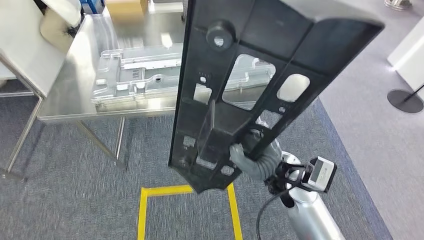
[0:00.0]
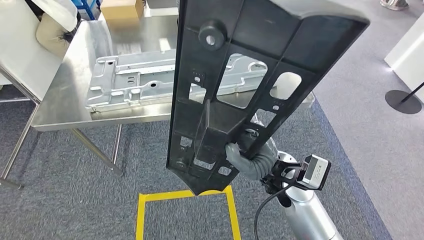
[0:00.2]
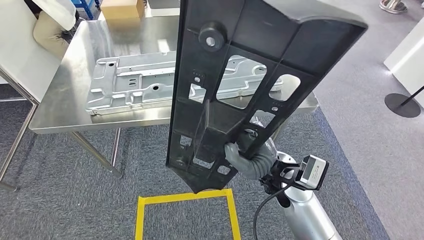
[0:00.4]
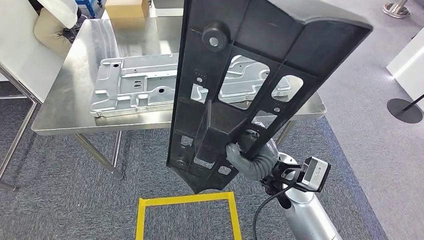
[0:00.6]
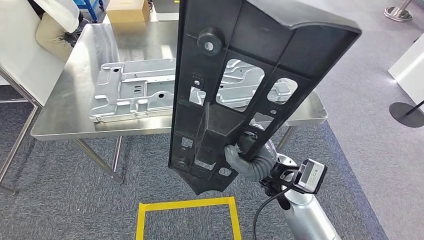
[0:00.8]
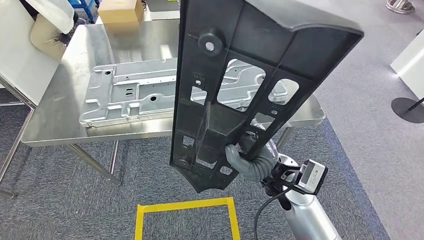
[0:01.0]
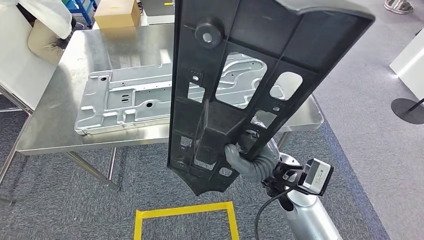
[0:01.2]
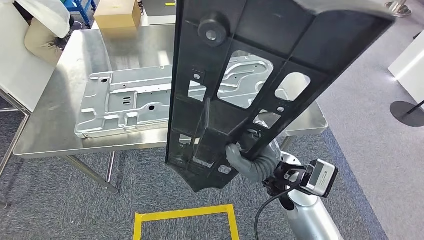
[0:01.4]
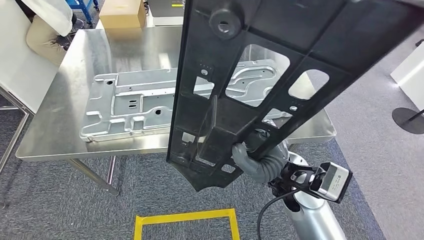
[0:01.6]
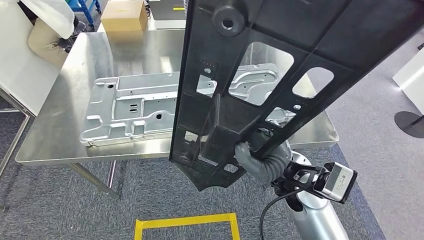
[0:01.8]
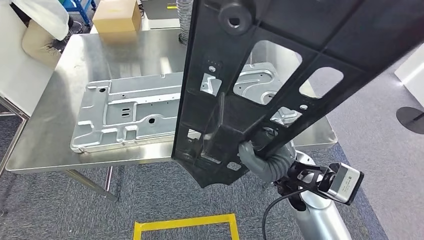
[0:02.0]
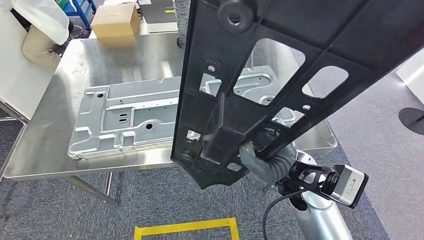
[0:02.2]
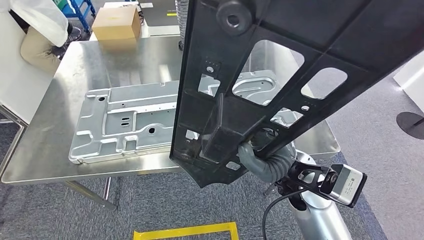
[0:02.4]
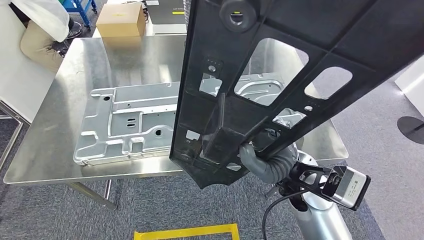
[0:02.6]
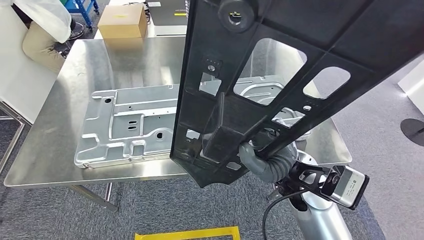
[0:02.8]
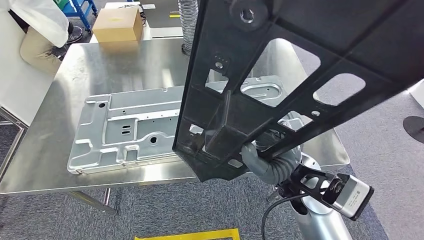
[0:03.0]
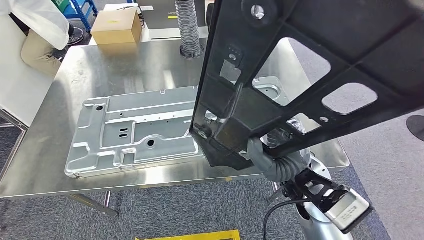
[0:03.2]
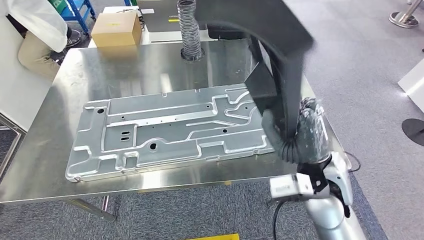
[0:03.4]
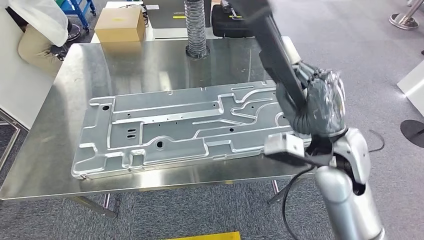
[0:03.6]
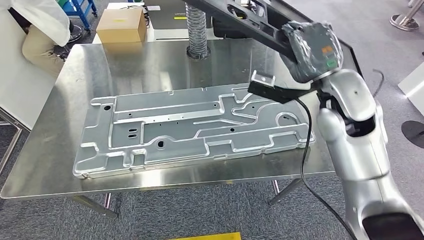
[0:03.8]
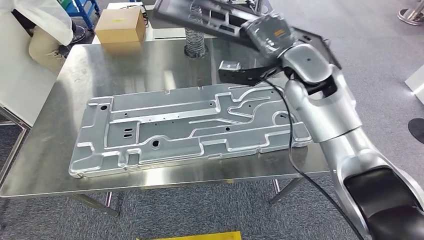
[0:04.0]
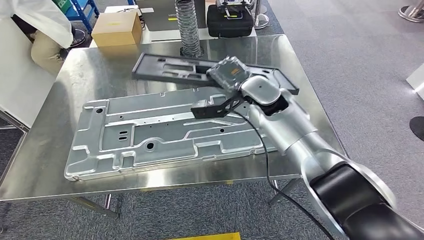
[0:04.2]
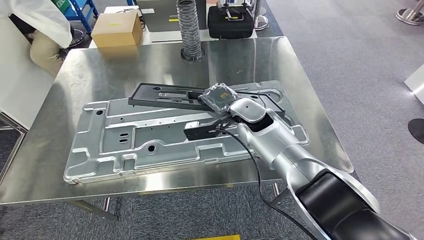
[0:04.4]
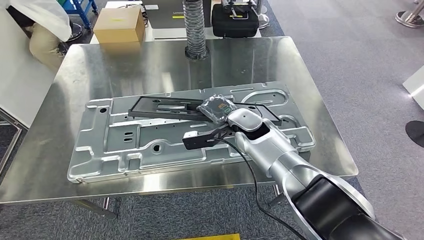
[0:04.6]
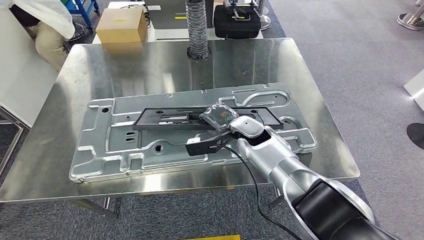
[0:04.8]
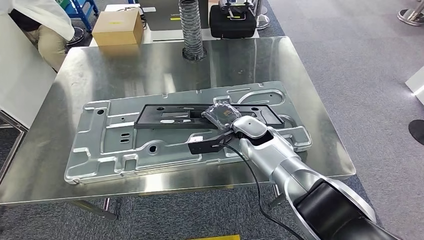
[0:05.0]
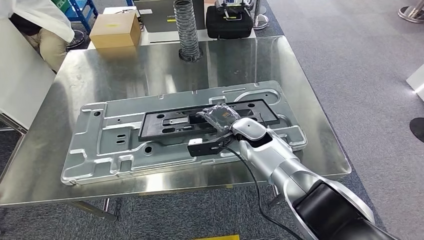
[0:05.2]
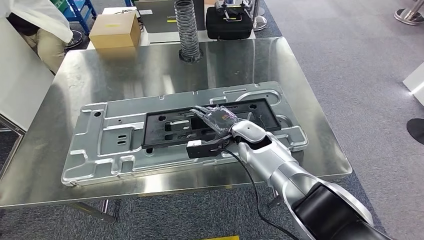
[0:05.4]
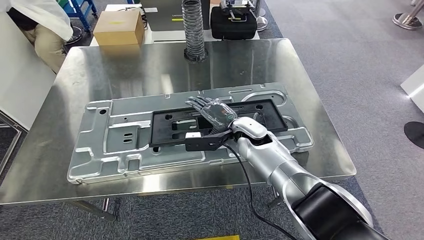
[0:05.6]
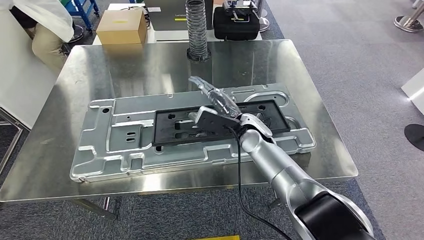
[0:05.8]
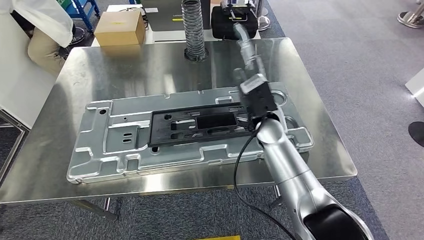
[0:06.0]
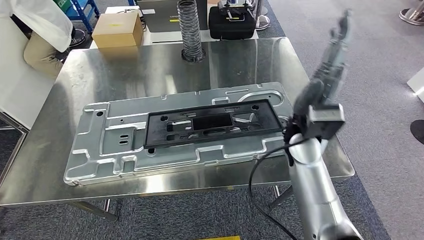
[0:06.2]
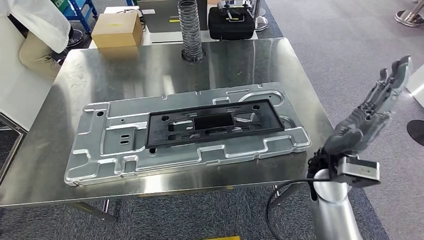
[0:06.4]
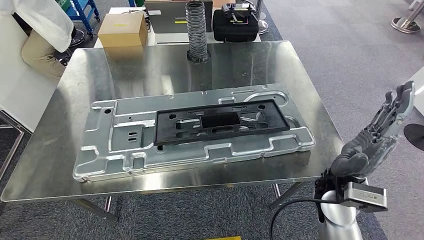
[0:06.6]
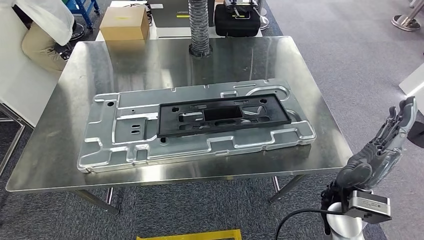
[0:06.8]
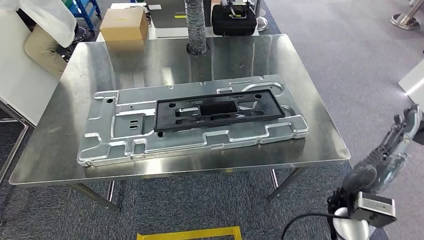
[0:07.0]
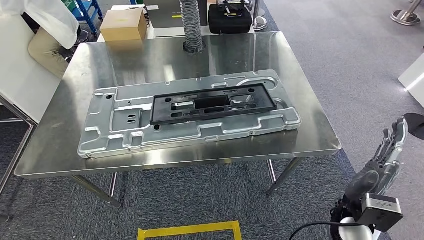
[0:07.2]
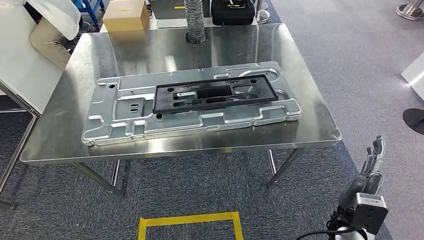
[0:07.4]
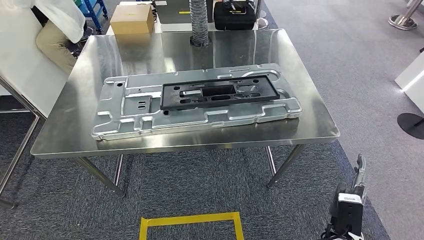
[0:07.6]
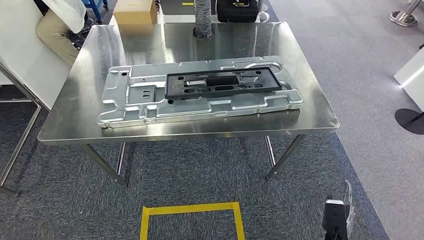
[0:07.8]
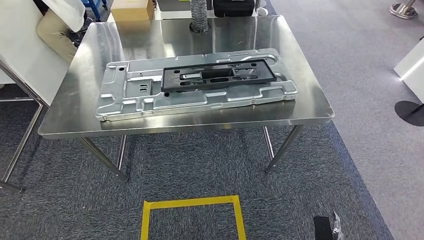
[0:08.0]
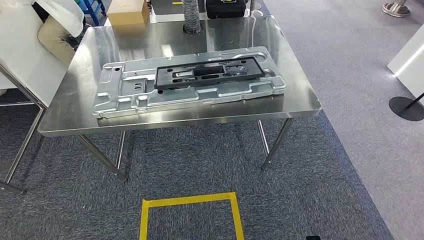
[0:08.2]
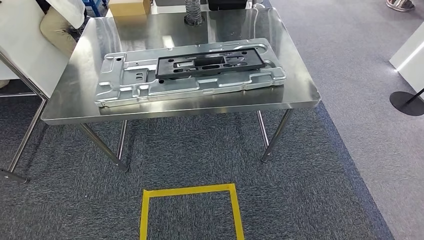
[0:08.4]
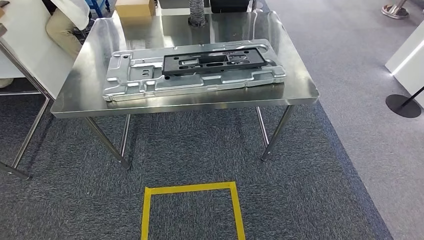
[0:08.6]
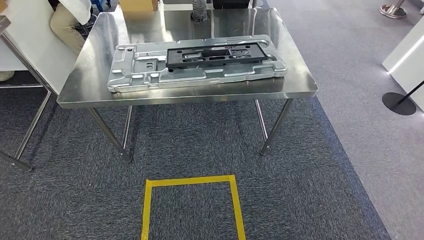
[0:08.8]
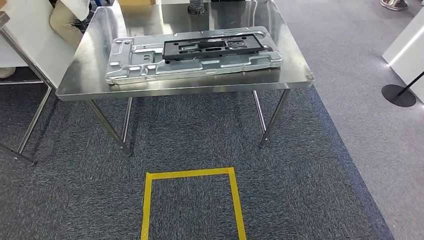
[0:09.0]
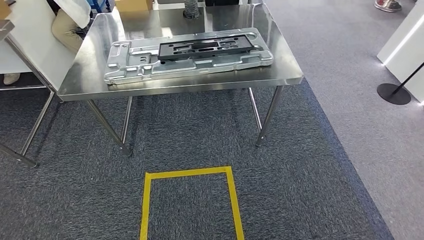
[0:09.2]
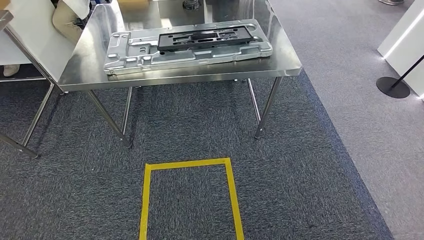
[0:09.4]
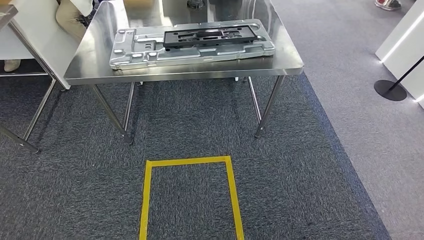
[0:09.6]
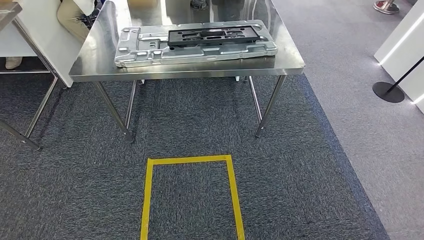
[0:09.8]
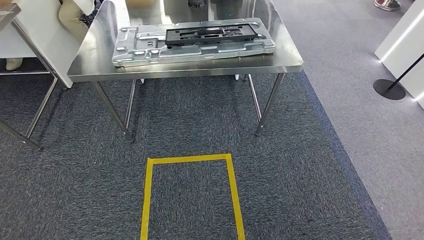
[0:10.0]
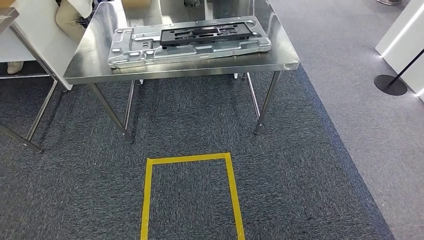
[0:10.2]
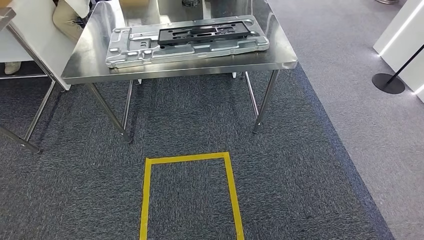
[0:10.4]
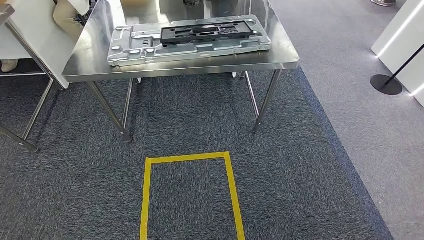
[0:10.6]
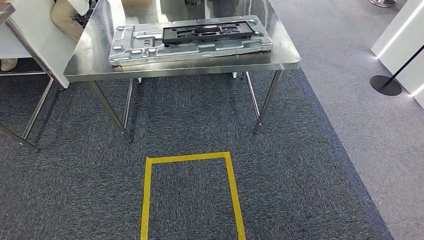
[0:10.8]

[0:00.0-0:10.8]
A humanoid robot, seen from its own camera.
Step, 0:00.0 to 0:07.8: Insert the small parts into the corresponding holes on the workbench.
Step, 0:08.2 to 0:10.8: Move to the initial position of the workbench.

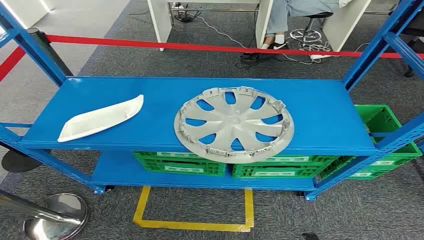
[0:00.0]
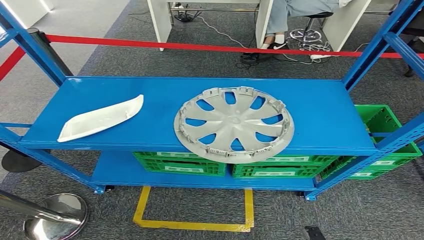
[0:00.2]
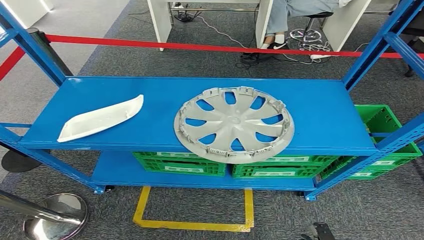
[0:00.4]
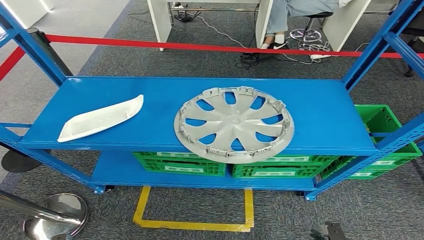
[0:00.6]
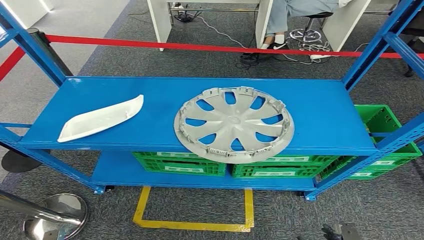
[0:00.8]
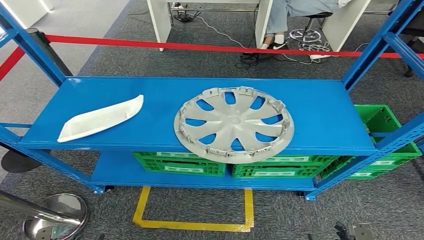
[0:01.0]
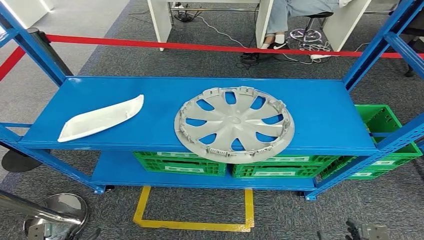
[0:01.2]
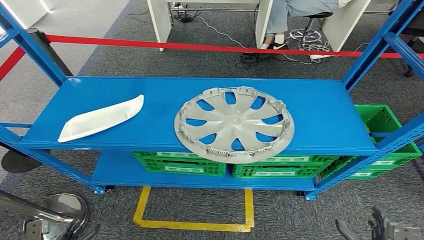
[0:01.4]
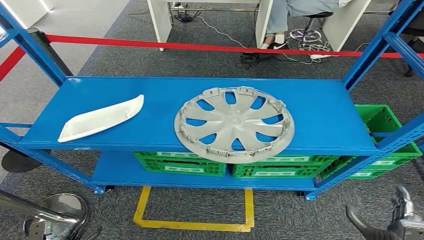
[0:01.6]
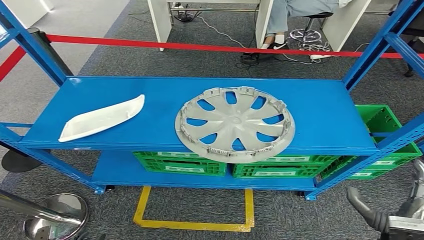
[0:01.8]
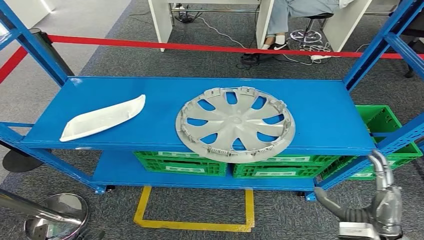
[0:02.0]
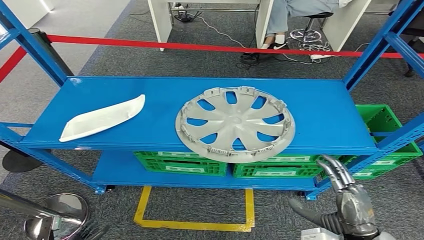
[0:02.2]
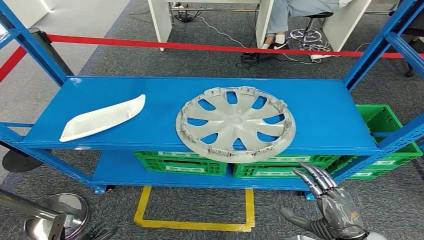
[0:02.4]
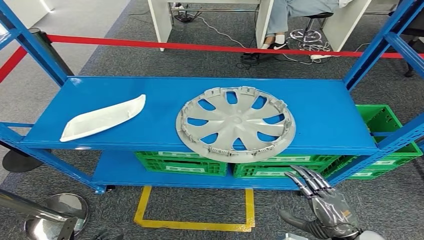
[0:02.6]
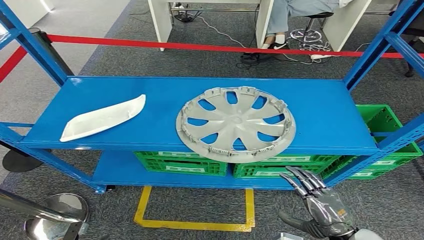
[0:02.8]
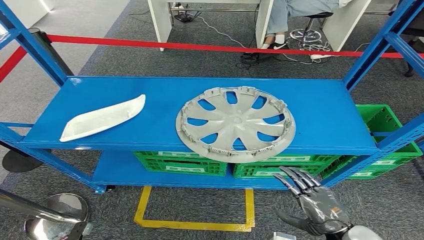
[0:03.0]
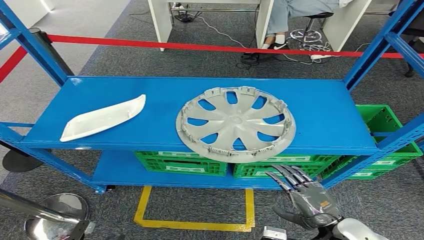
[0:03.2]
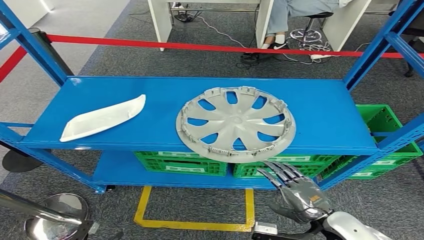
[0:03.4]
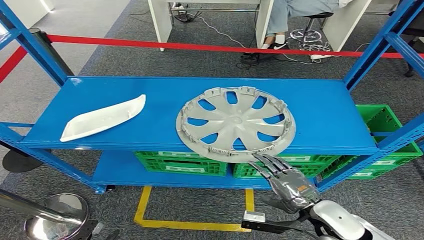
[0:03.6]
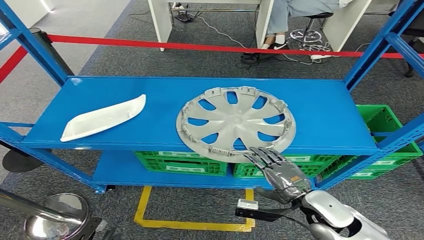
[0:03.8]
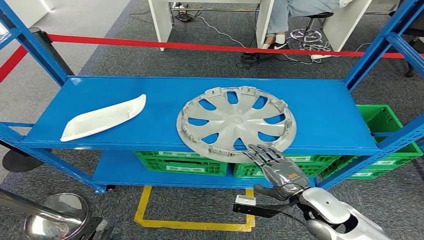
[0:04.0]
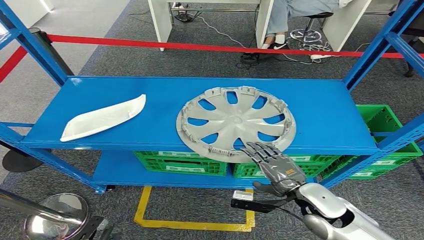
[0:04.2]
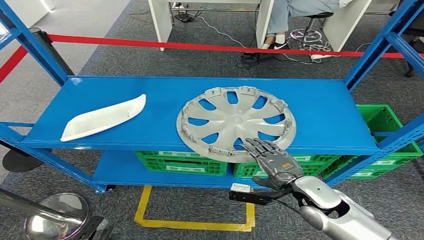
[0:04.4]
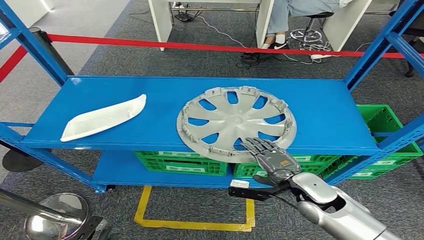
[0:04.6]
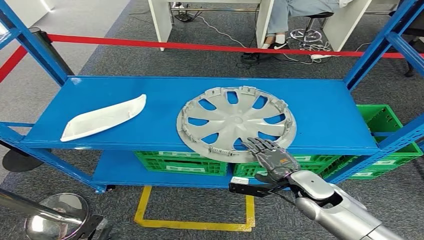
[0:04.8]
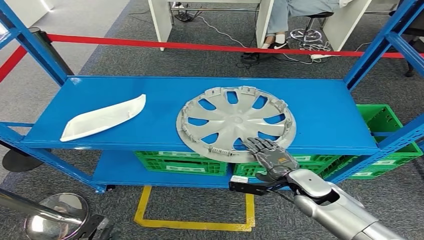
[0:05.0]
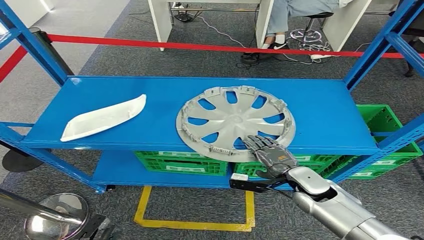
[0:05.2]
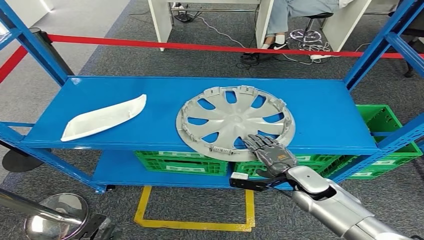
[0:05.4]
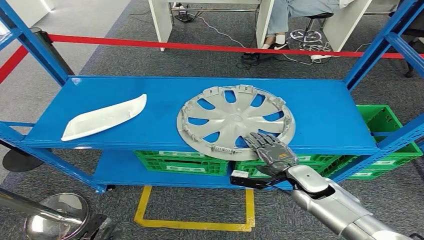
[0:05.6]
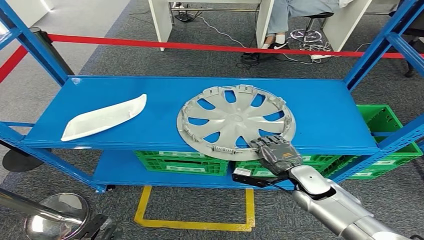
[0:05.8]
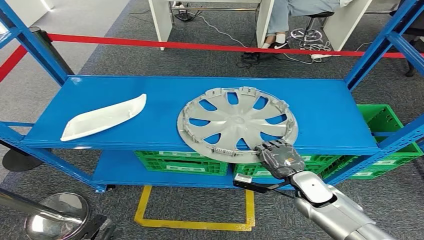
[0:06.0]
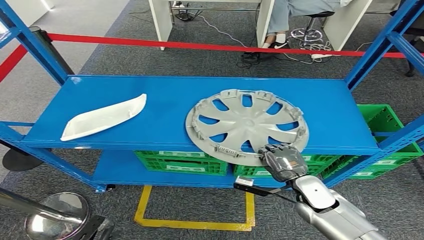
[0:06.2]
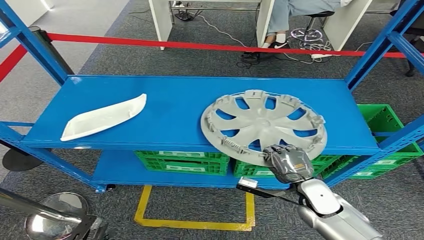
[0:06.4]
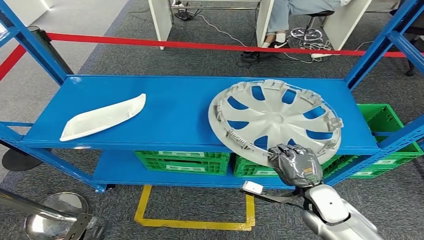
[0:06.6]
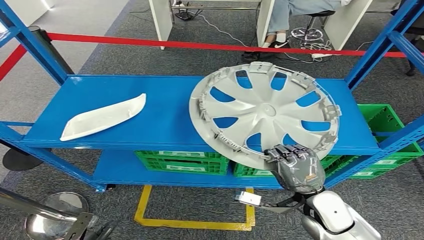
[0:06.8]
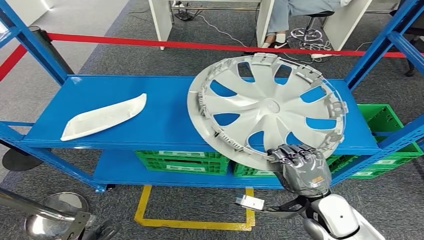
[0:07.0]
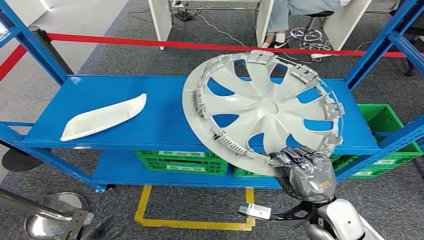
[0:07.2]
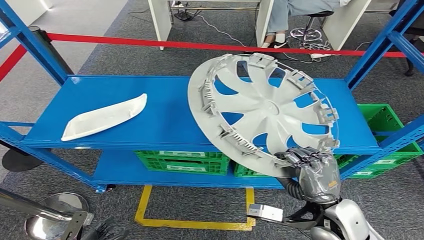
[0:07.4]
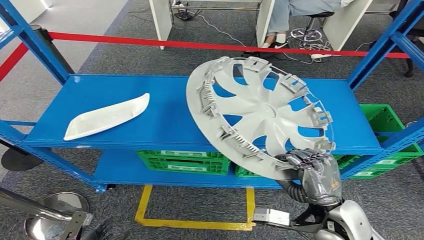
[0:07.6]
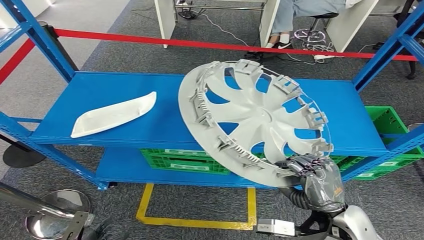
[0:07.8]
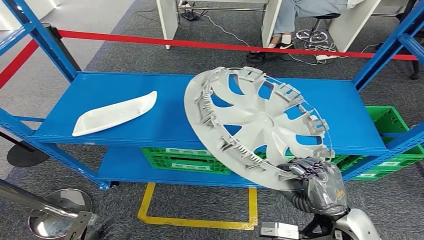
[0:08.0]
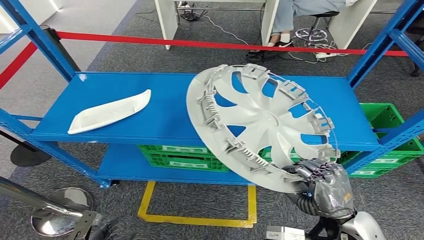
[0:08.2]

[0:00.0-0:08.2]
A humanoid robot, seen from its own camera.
0:01.6 to 0:03.2: The right hand moves roughly 10 cm.
0:03.2 to 0:05.0: The right hand shifts approximately 15 cm forward.
